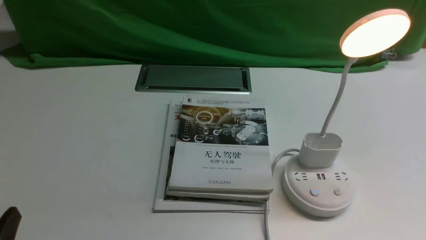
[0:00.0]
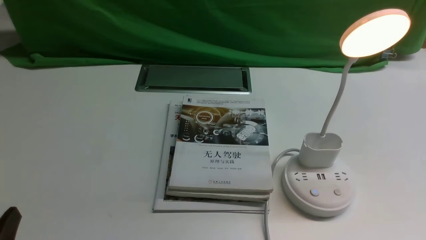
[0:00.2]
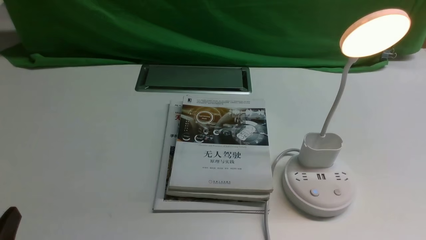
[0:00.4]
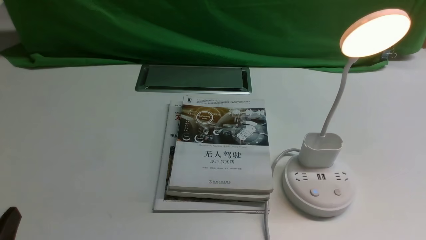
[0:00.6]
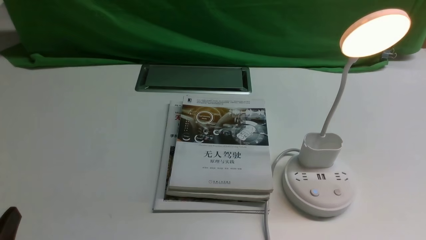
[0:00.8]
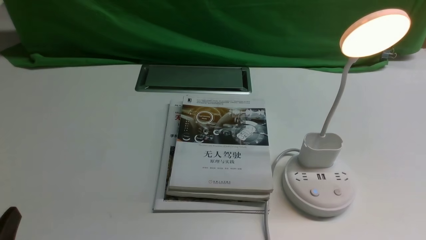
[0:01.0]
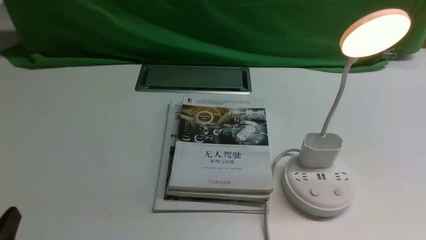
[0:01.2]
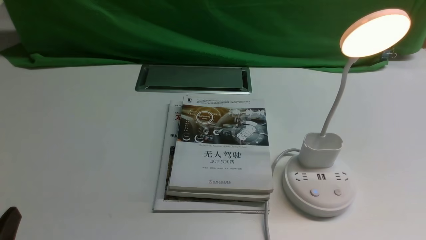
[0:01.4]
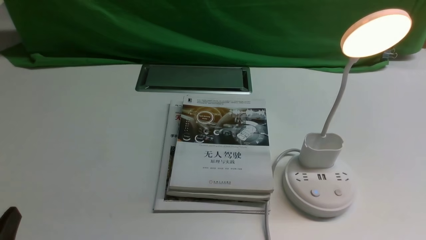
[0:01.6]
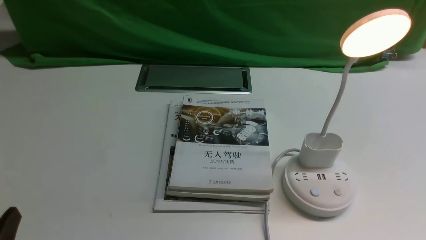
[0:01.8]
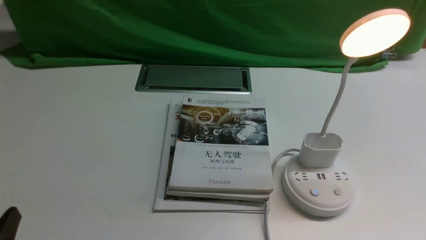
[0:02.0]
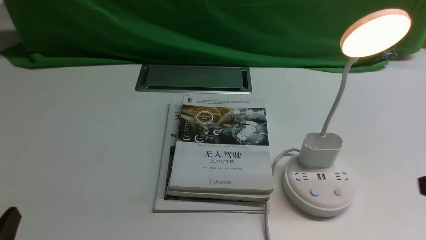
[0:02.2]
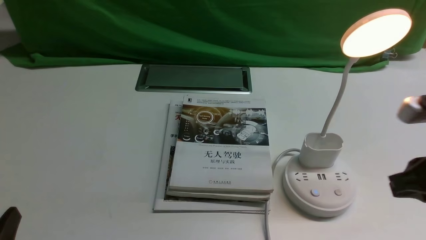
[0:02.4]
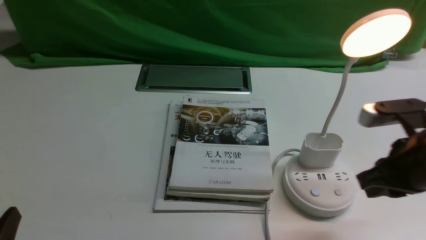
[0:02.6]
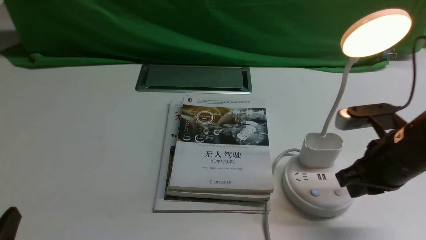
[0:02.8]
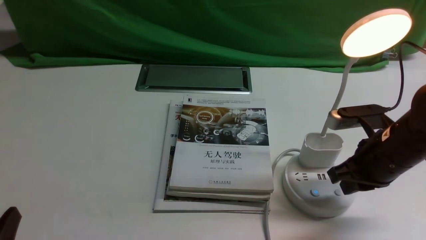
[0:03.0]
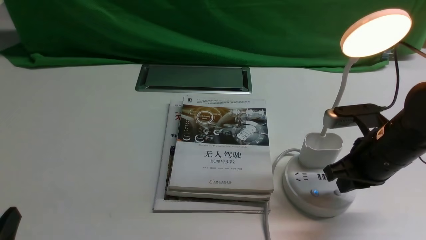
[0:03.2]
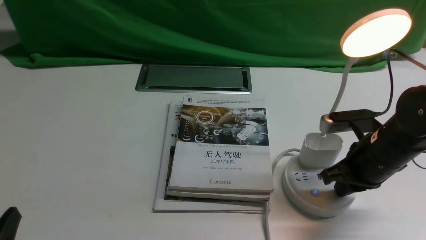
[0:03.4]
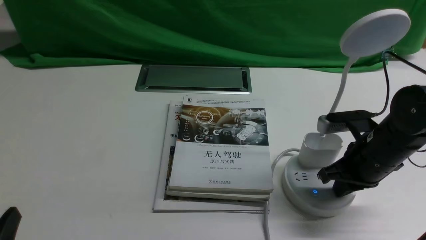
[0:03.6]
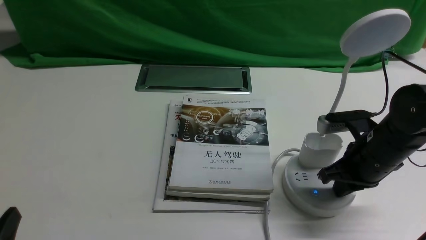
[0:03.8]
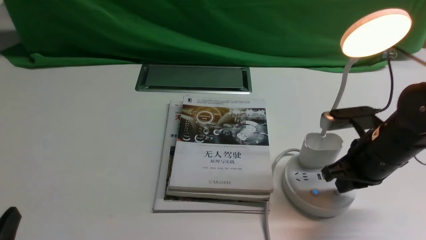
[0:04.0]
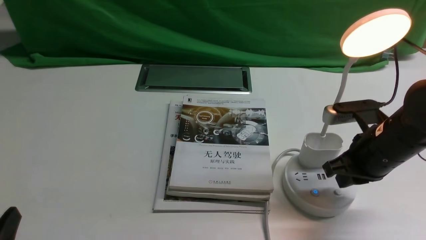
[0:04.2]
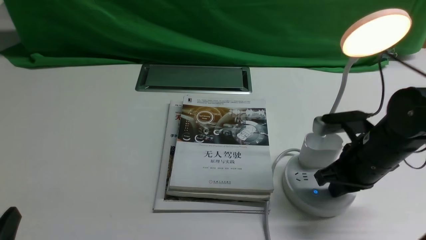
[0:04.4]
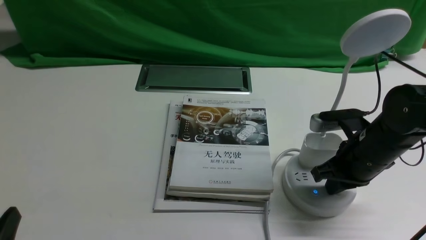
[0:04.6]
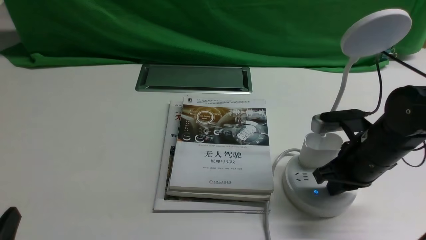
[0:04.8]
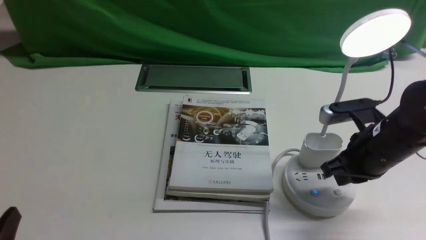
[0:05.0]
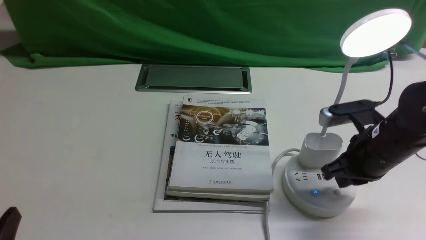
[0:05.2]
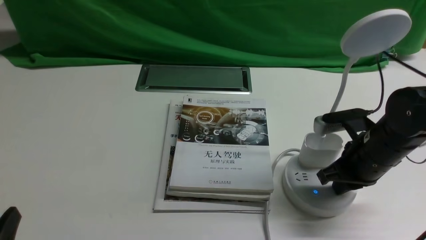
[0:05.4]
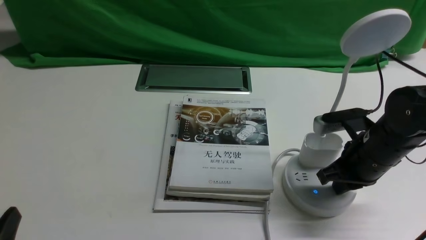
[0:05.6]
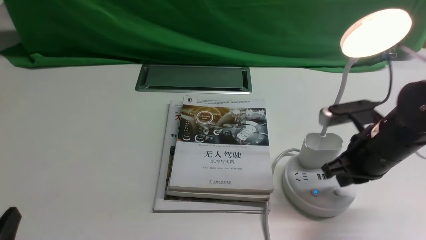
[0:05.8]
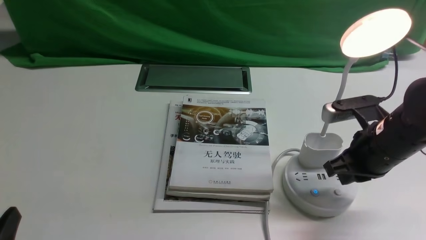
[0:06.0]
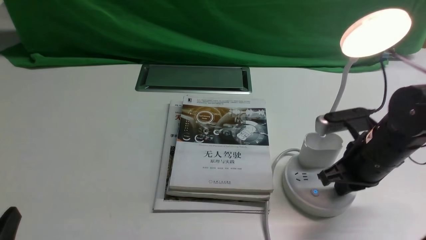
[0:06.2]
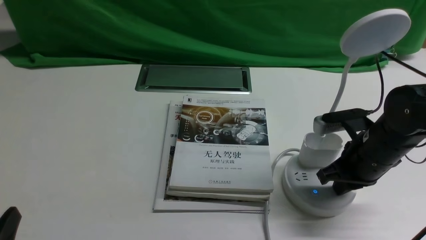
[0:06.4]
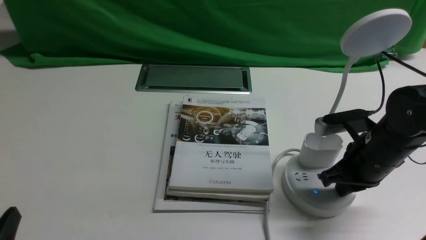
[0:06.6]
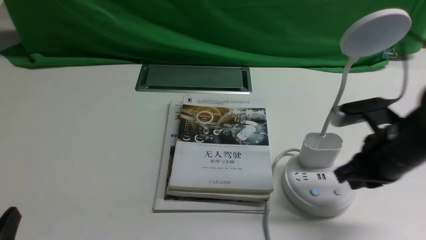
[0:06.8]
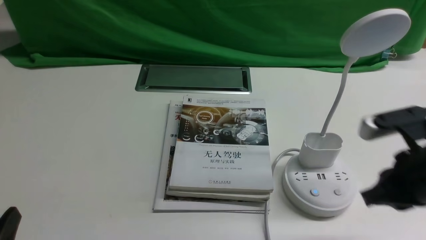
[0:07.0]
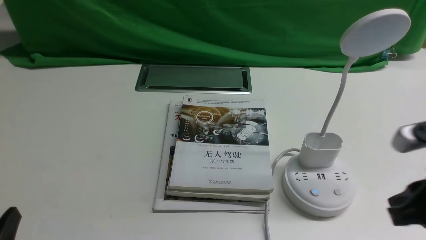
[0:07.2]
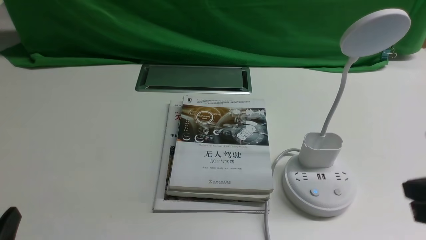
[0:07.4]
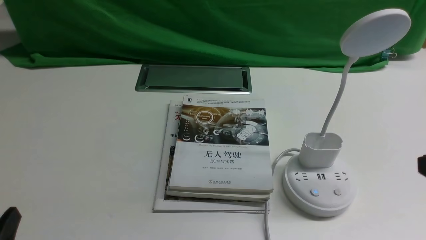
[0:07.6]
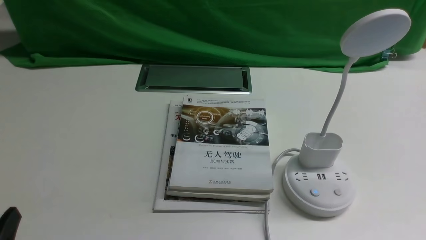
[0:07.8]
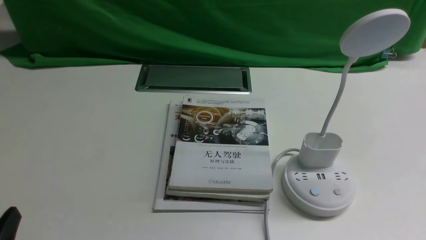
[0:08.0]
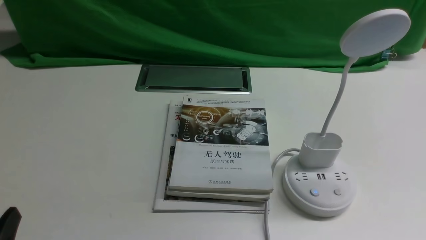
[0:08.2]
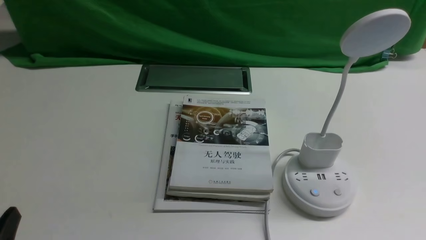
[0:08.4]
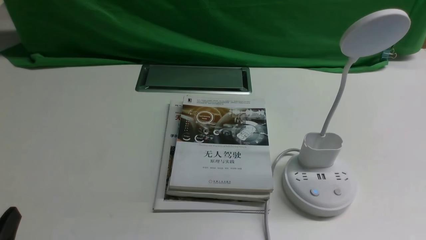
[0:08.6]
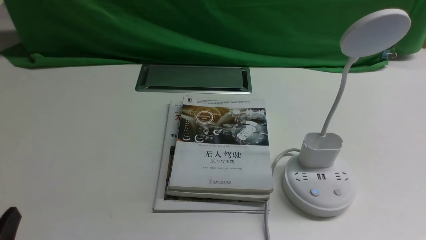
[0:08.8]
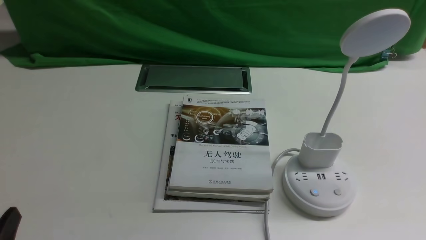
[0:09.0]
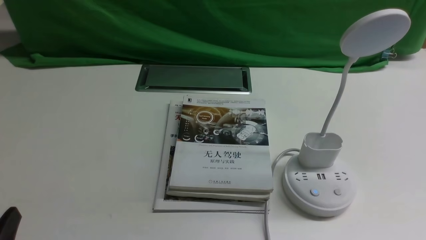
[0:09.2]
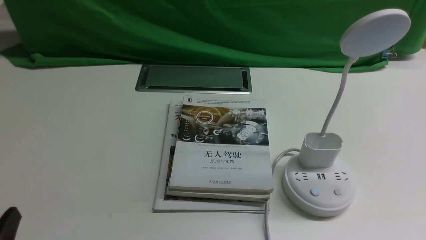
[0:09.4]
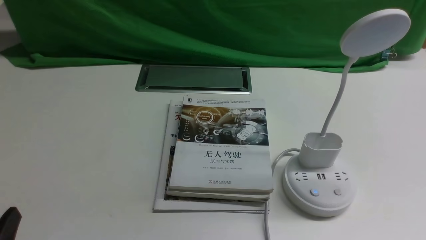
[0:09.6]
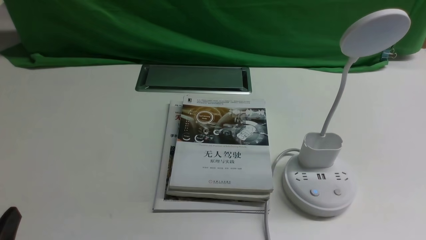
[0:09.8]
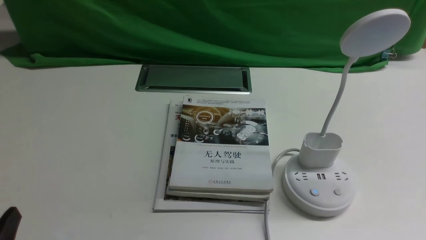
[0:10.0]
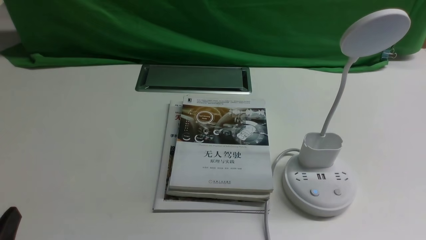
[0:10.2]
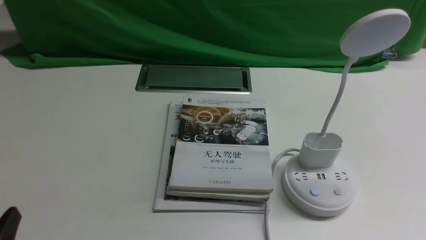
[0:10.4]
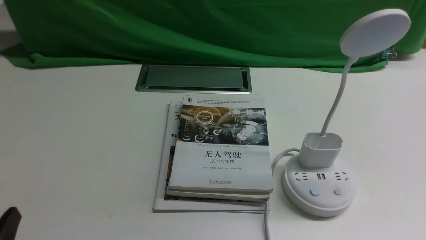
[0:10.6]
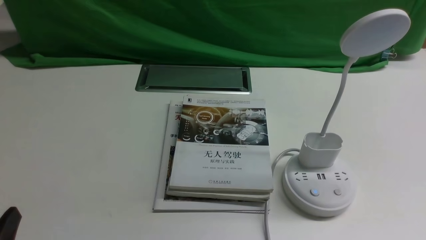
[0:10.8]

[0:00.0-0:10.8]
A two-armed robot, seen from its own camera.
Task of the whole recording: turn off the desk lamp on the white desktop by hand.
Step, 0:00.0 to 0:06.6: use the right arm to press the button switch on the lamp holder.
0:01.6 to 0:03.0: The right gripper heads forward, covering about 20 cm, and closes its fingers.
0:03.0 to 0:06.2: The grippers move only a little.
0:06.2 to 0:07.8: The right gripper goes about 20 cm backward.
